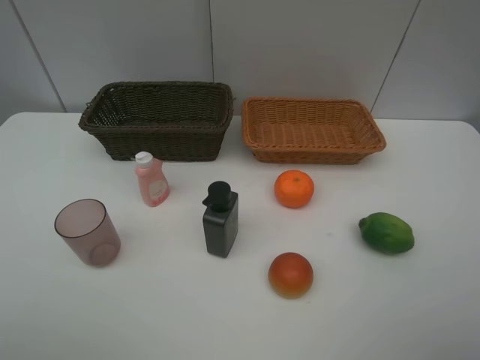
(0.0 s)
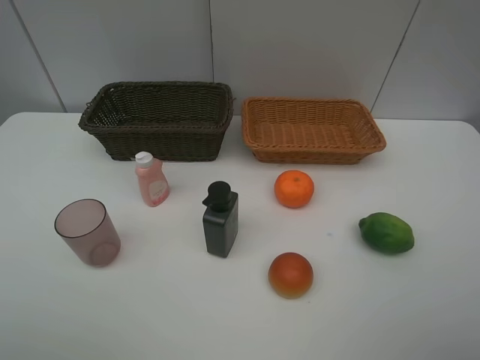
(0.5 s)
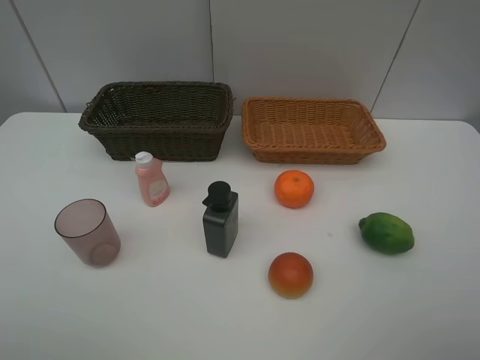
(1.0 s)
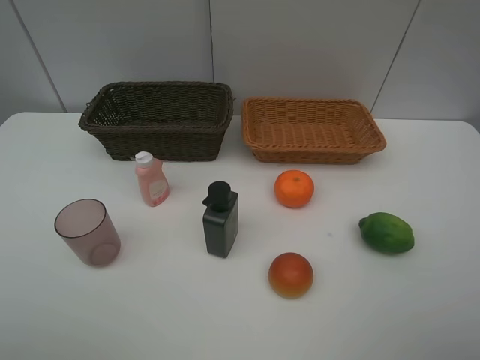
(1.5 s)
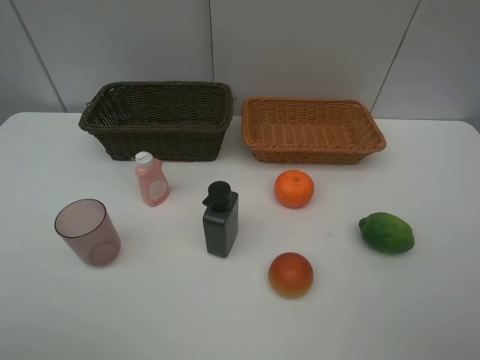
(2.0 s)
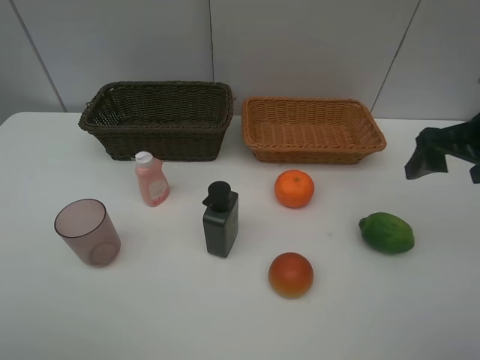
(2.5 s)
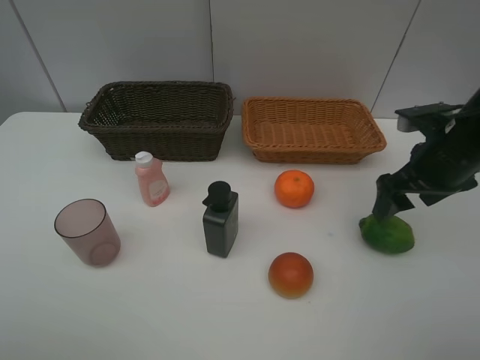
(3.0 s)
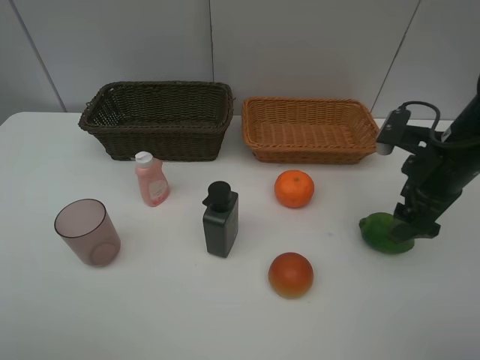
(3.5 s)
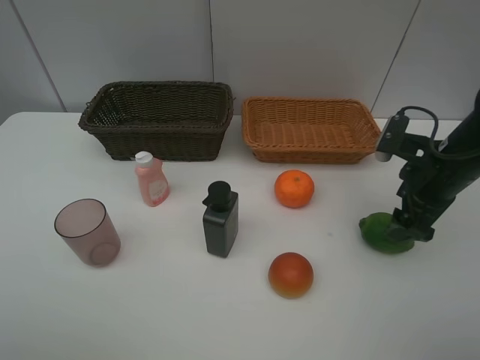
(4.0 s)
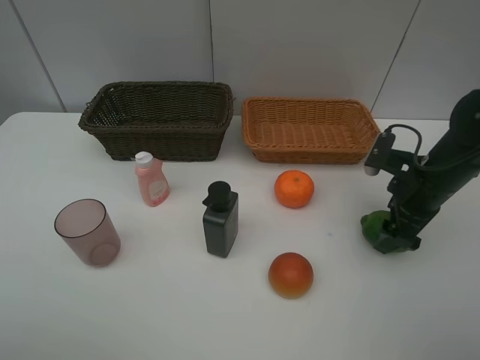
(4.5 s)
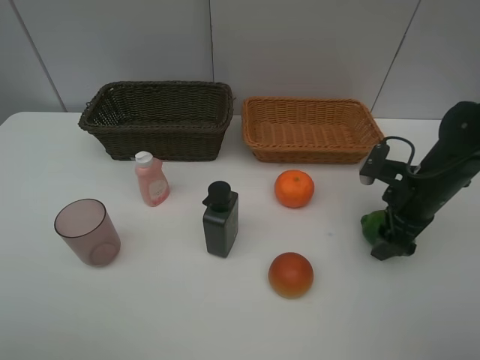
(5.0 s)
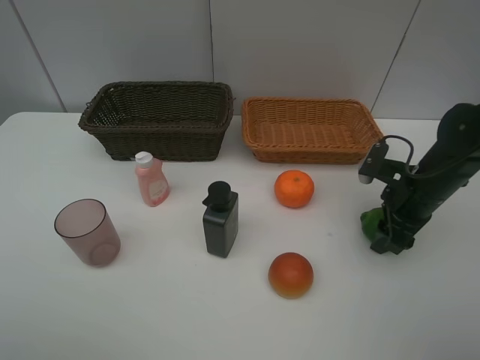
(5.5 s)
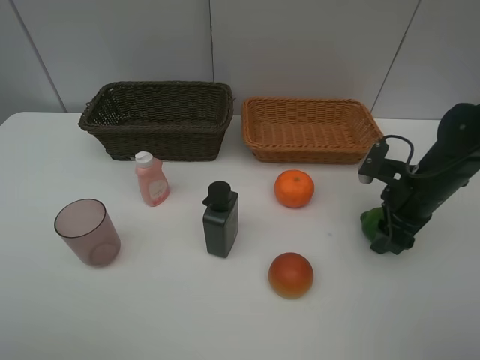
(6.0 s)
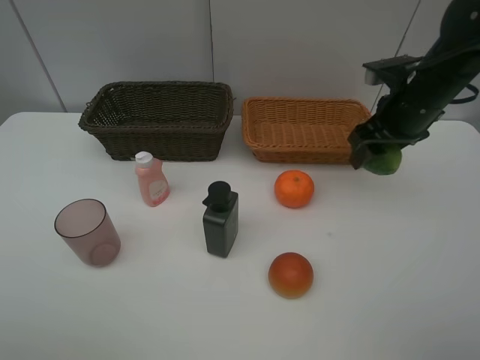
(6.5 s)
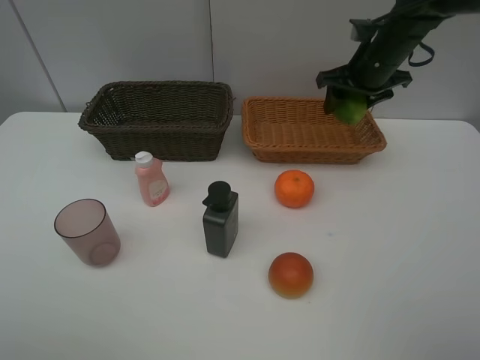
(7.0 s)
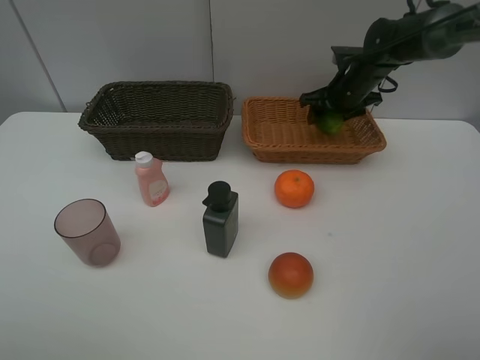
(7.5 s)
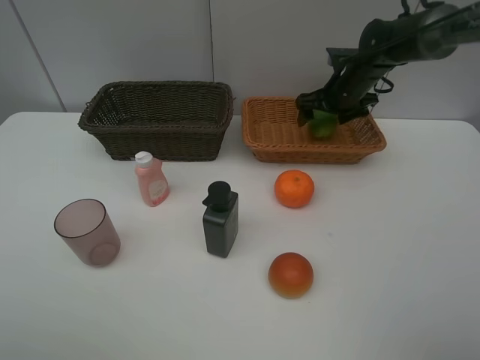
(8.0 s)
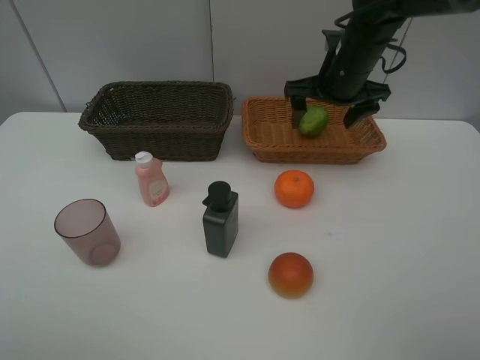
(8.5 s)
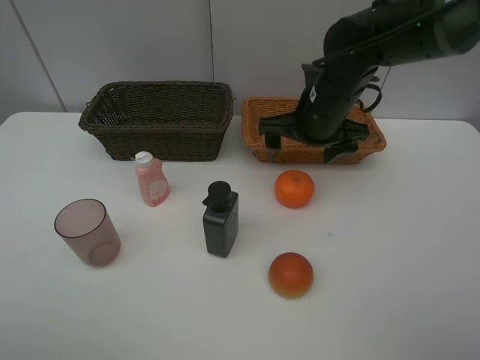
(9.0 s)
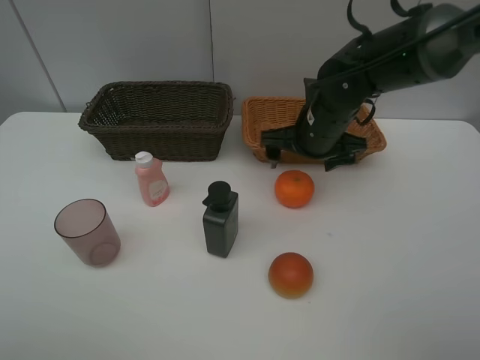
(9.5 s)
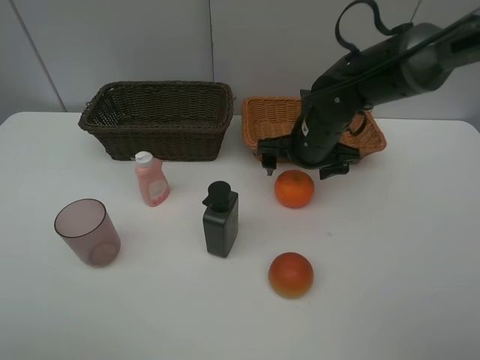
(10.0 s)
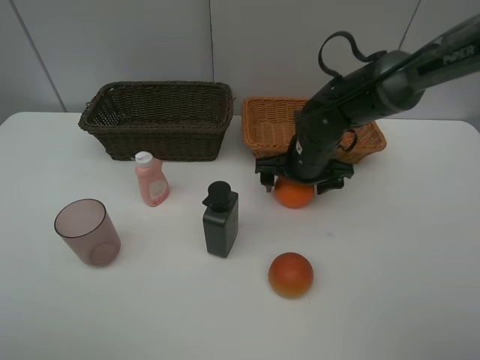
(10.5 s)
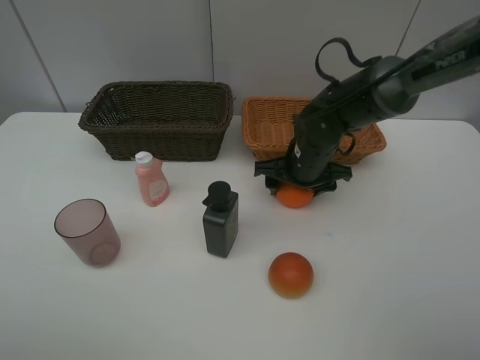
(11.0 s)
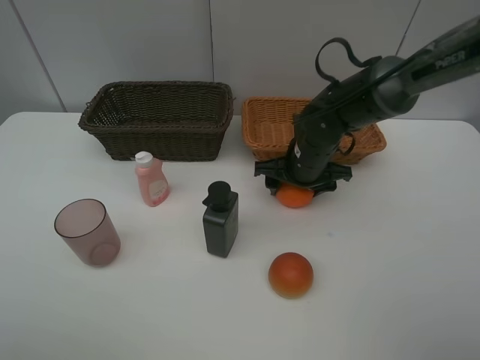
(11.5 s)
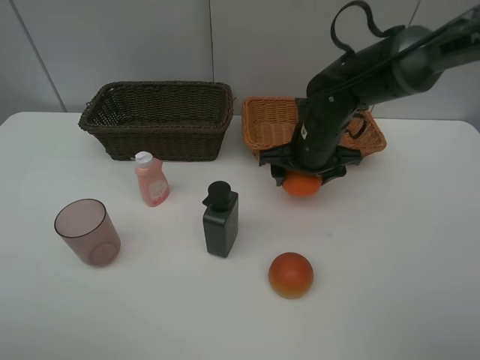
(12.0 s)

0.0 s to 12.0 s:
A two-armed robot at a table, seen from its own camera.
Task of the whole recording: place multiple objects separately in different baskets.
2.0 to 4.0 s: The right gripper heads forward and downward, covering some 25 cm.
4.0 to 6.0 s: The right gripper changes place by approximately 5 cm, and closes.
6.0 to 8.0 s: The right gripper heads forward, covering approximately 20 cm, and opens.
8.0 to 10.0 s: The right gripper heads backward and to the left, covering roughly 15 cm.
10.0 to 12.0 s: The right gripper closes up.

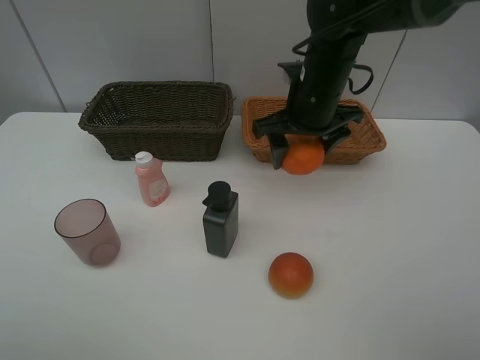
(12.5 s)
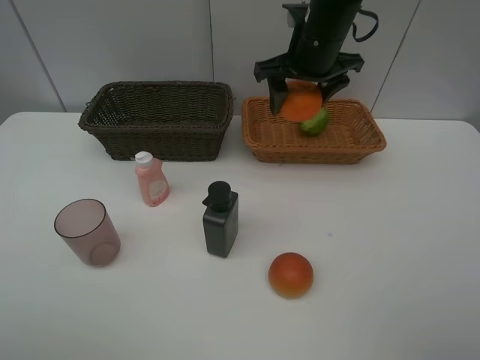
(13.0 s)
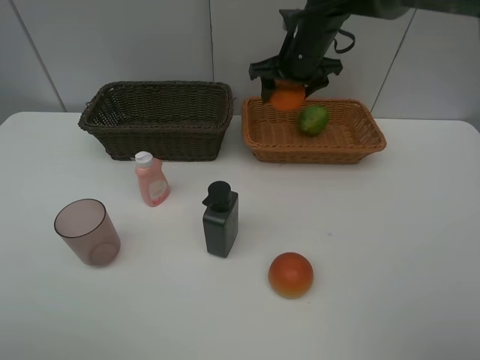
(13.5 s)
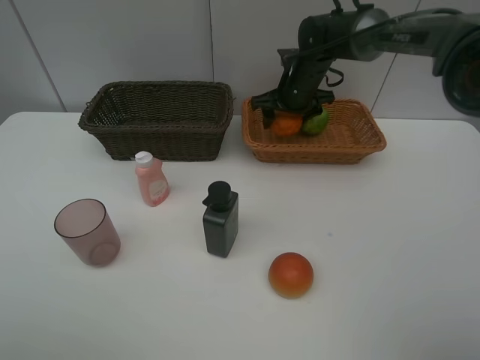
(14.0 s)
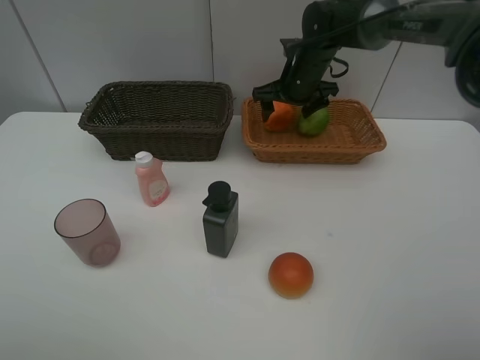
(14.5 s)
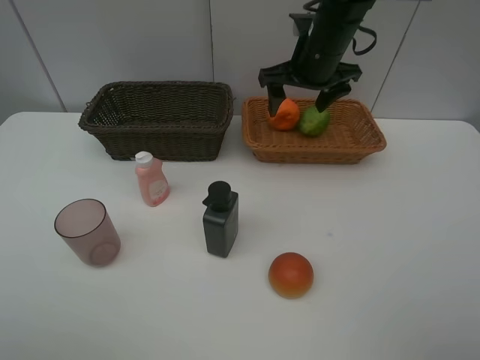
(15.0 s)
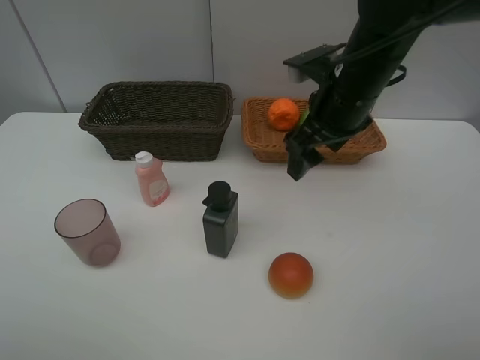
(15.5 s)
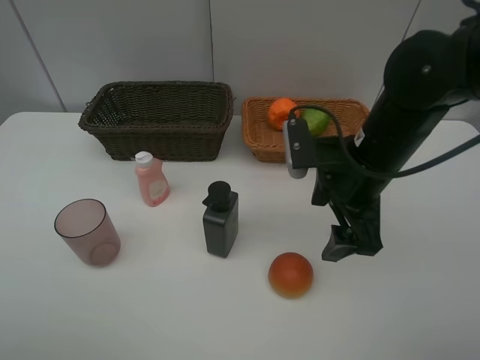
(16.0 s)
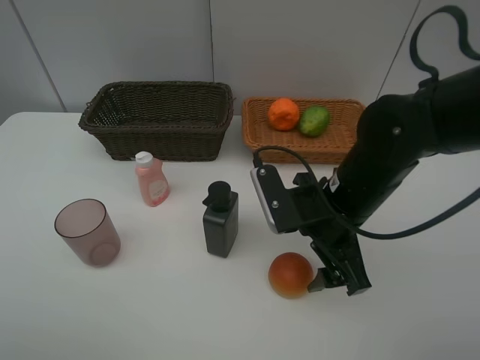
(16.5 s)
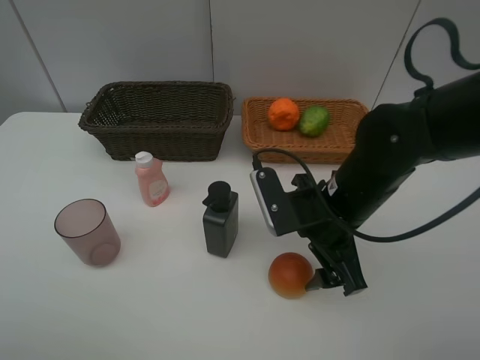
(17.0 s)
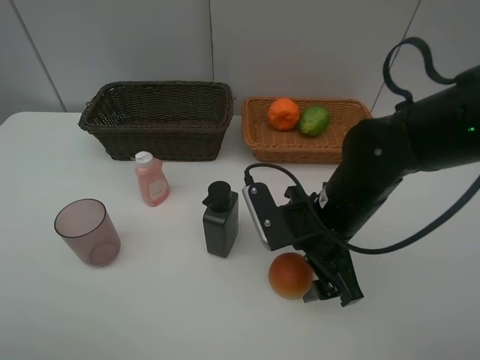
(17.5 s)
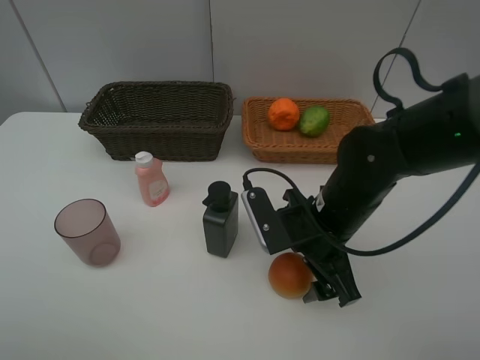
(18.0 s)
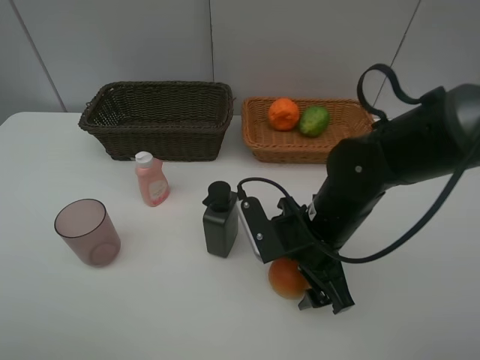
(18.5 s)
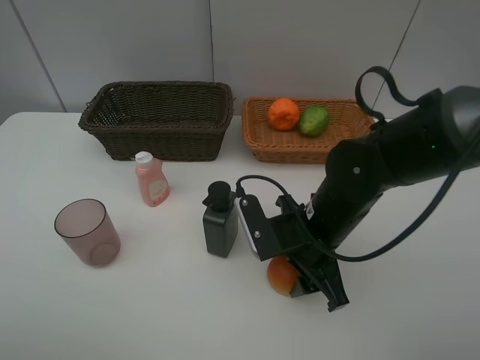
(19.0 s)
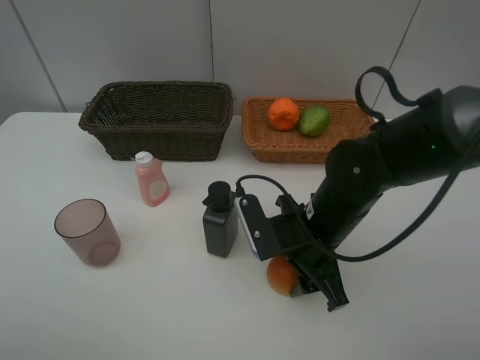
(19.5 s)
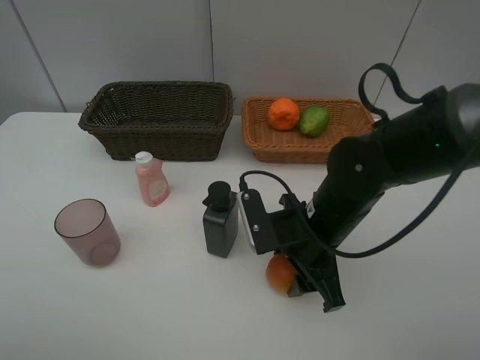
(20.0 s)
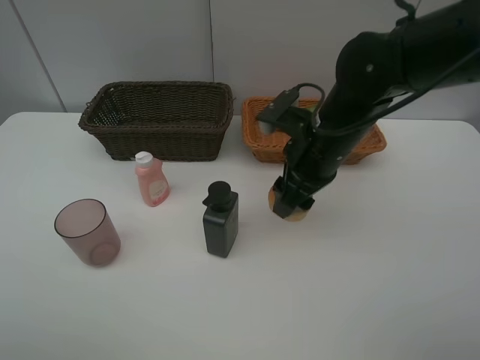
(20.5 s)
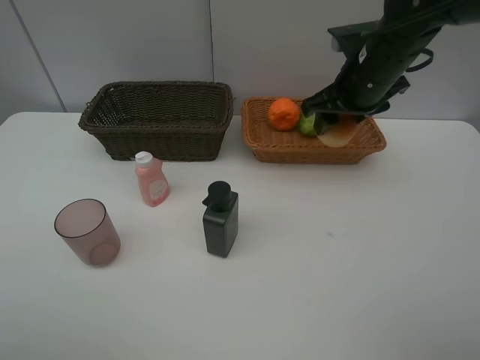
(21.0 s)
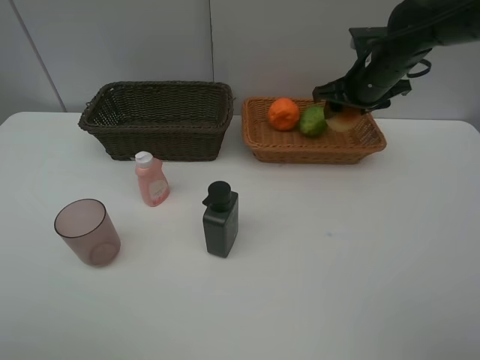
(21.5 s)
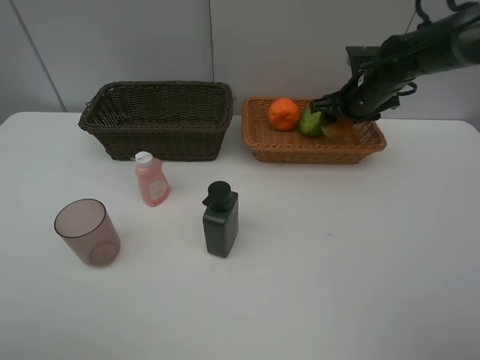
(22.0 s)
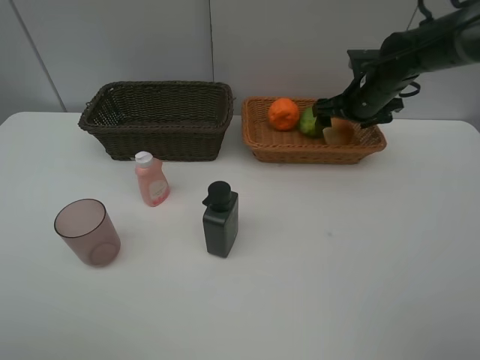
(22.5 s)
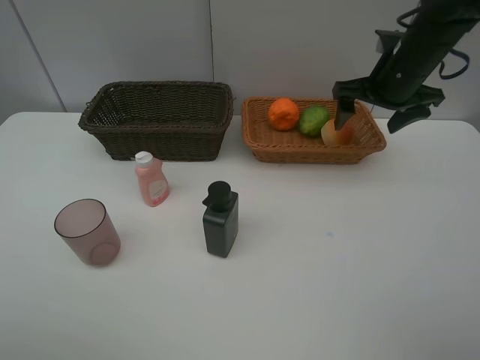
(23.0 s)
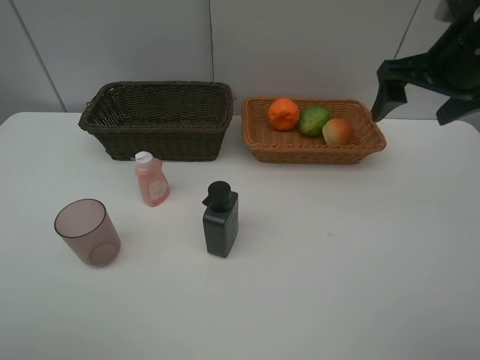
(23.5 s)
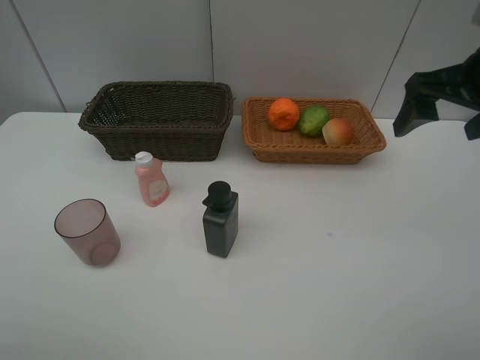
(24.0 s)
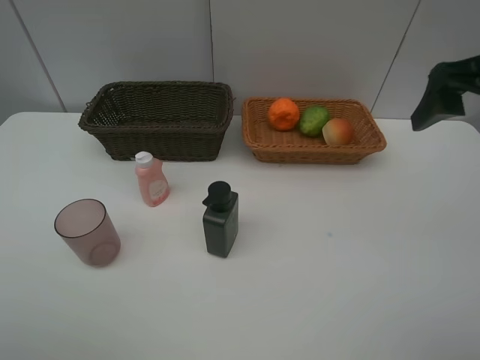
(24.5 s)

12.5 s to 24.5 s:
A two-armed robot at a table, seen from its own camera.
Task of the whole recording: place multiple objects separately in different baskets.
12.5 to 14.5 s: The right gripper shifts approximately 15 cm forward, and opens up.
14.5 to 16.5 s: The right gripper shifts roughly 25 cm backward.
16.5 to 18.5 s: The grippers make only small movements.
18.5 to 20.5 s: The right gripper moves upward and forward, about 10 cm, and closes.
20.5 to 22.5 s: The right gripper is displaced forward and to the right by approximately 20 cm, and opens its fingers.
22.5 to 24.5 s: The right gripper is displaced backward and upward by about 25 cm.

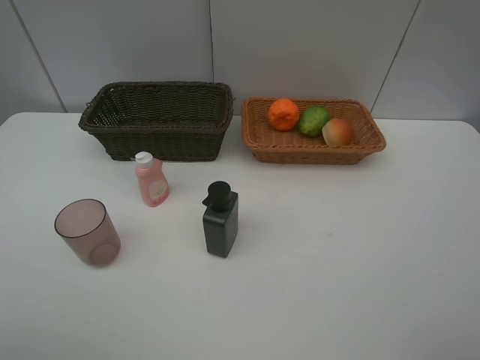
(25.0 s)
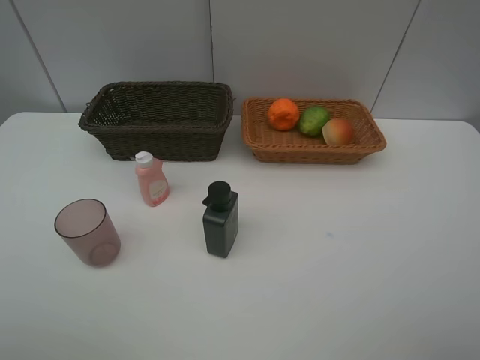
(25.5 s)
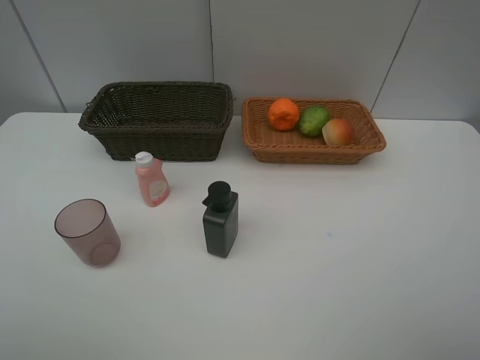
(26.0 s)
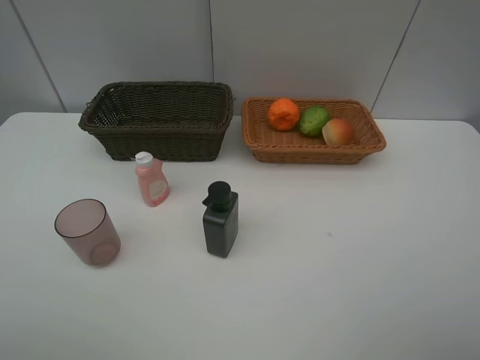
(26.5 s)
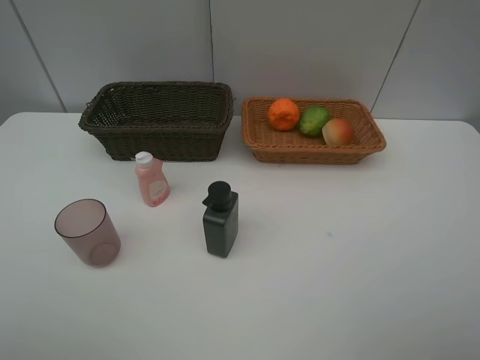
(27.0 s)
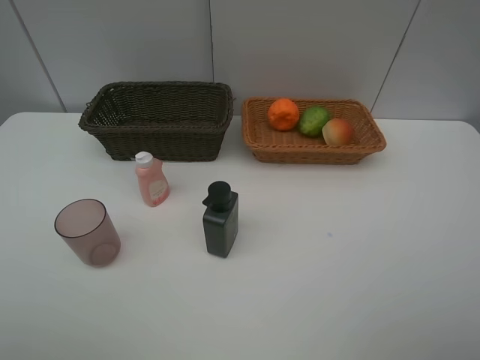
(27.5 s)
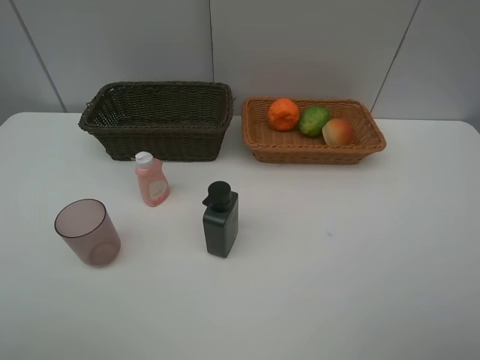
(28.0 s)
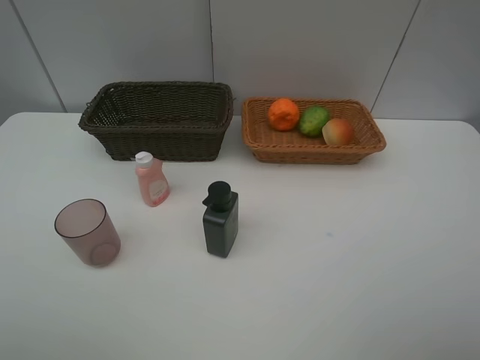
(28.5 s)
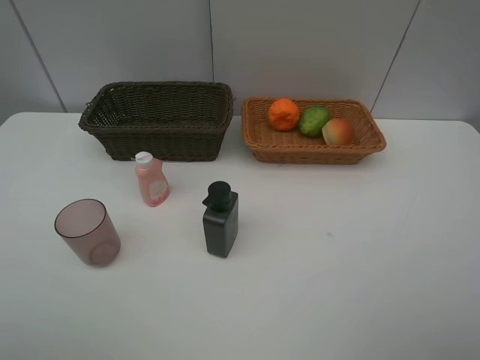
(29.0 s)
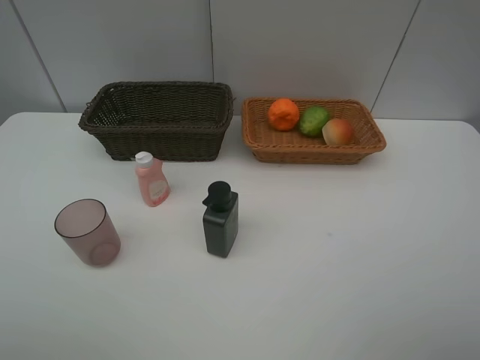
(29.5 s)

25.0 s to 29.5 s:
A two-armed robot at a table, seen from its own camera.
Task of the whole recording: place multiple objects separately in different baskets.
27.0 to 29.5 s: Both grippers stay about where they are.
